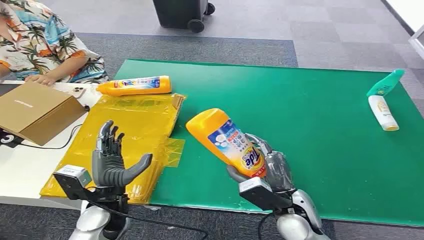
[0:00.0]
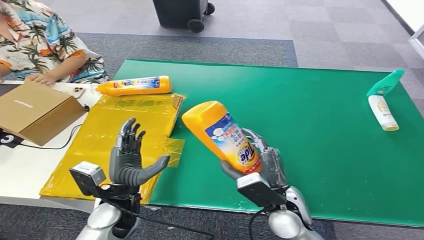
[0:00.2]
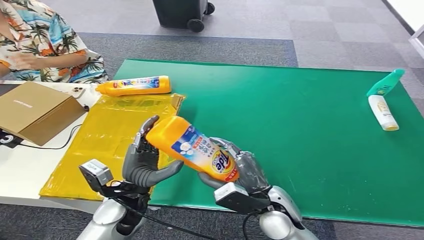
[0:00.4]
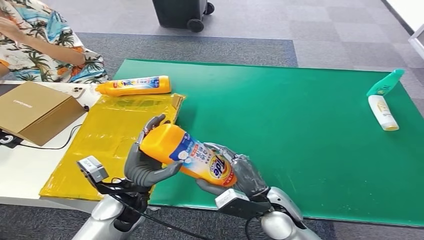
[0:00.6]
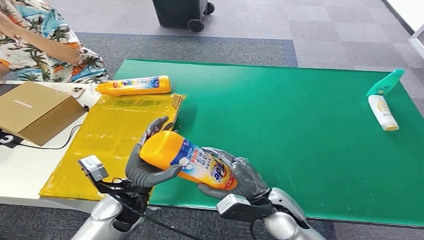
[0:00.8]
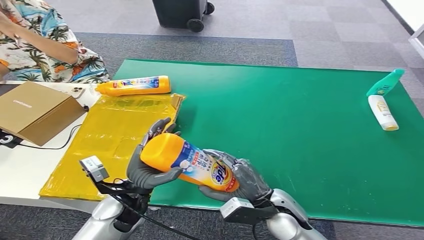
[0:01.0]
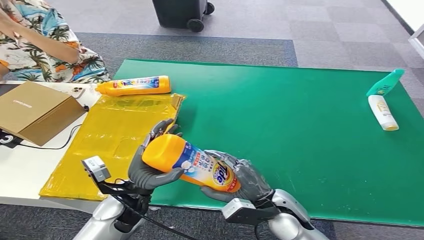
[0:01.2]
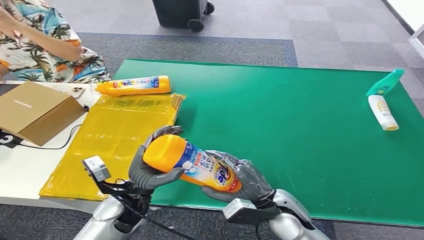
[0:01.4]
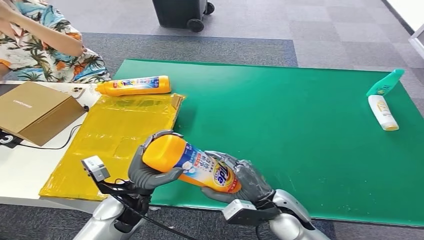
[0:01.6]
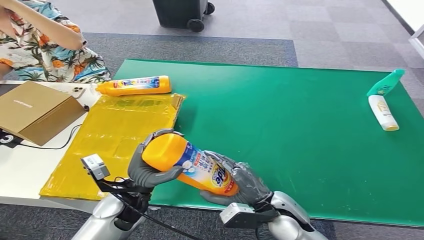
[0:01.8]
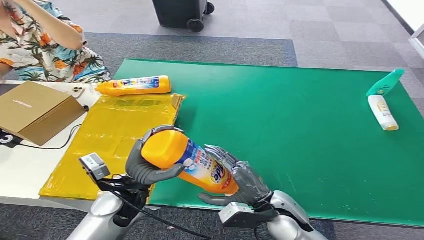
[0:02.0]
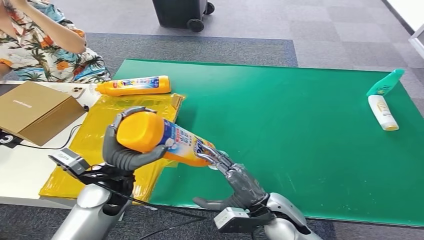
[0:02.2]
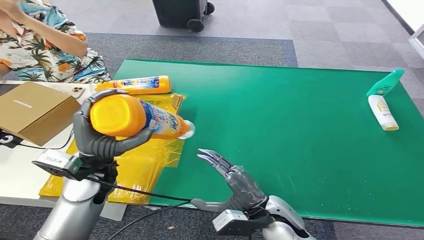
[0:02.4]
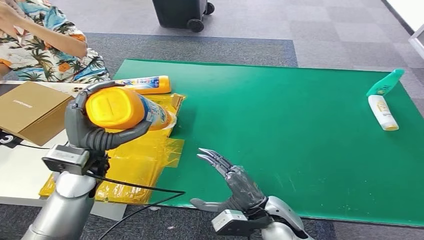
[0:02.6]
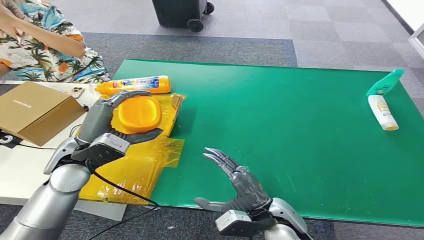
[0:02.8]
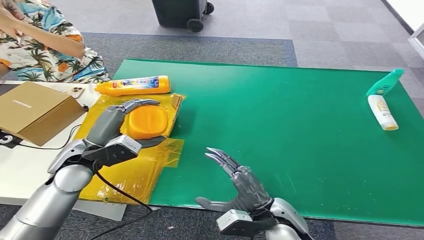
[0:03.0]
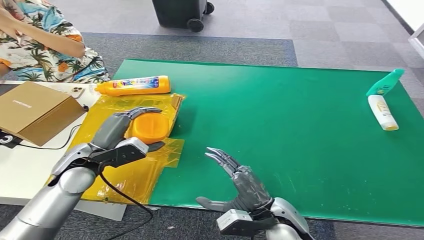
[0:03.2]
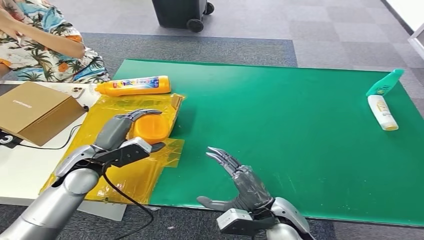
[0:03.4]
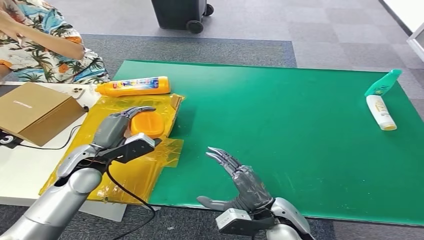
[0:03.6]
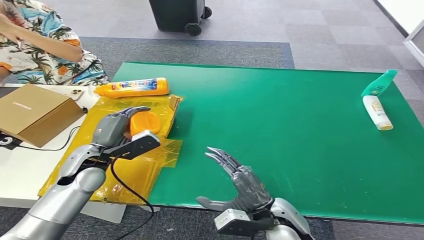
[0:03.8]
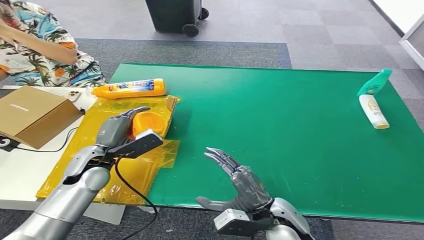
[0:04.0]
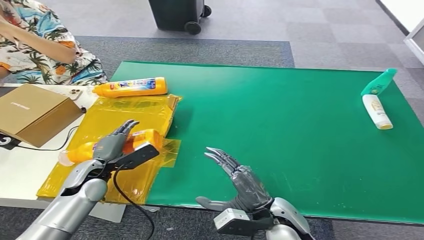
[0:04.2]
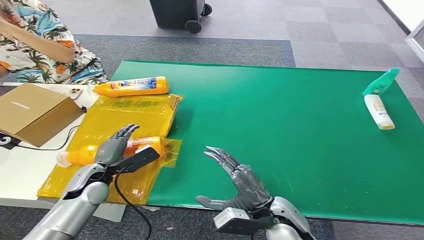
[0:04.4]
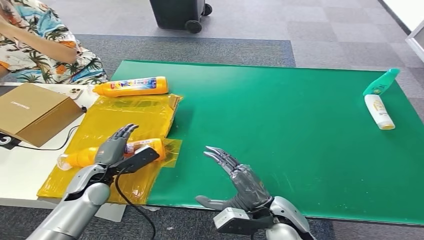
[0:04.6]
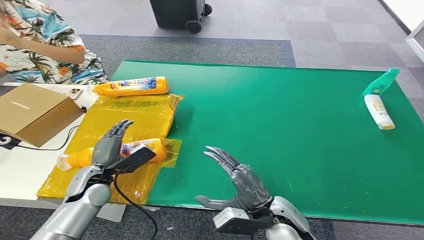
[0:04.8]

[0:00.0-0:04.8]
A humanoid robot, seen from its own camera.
Step, 0:00.0 to 0:00.2: Pick up the bottle from the table.
Step, 0:00.4 to 0:04.8: Turn the bottle to the front side.
0:01.6 to 0:03.2: The left hand is displaced to the left, forward and upward by approximately 15 cm.
0:03.2 to 0:04.8: The left hand heads downward, covering roughly 10 cm.
